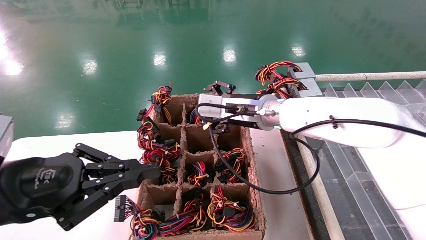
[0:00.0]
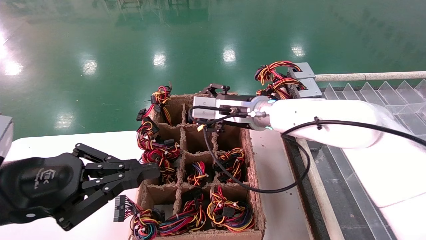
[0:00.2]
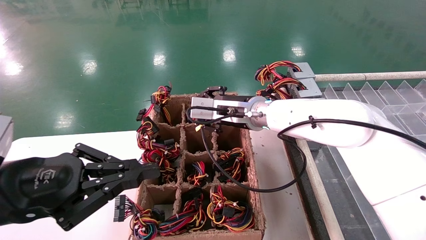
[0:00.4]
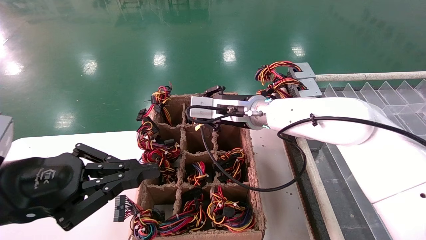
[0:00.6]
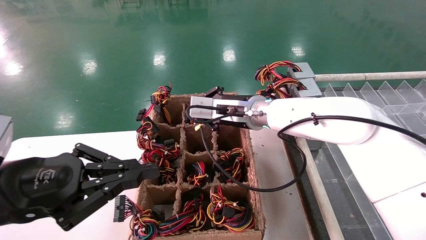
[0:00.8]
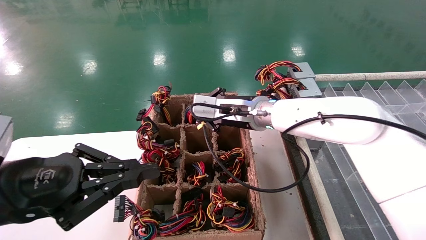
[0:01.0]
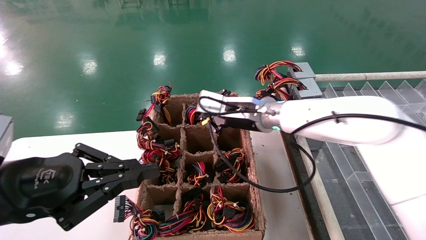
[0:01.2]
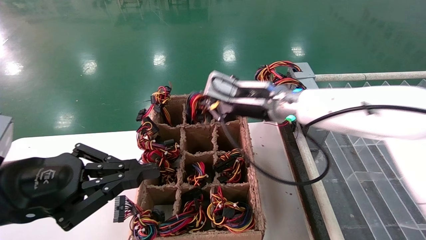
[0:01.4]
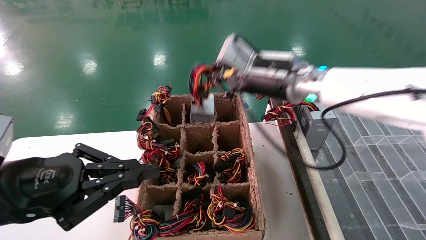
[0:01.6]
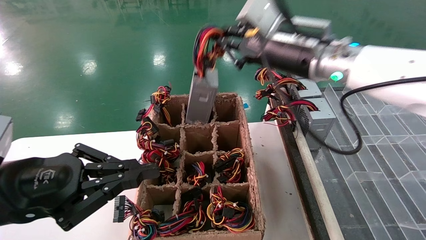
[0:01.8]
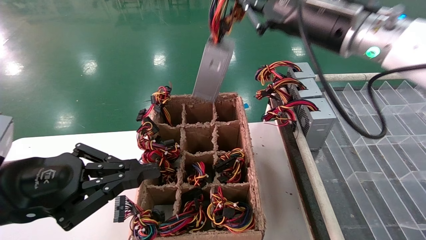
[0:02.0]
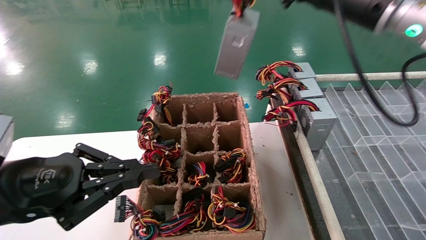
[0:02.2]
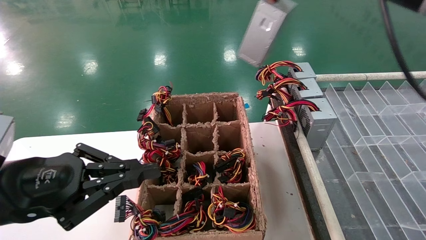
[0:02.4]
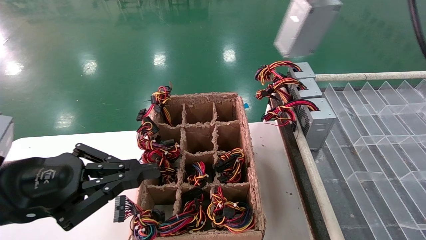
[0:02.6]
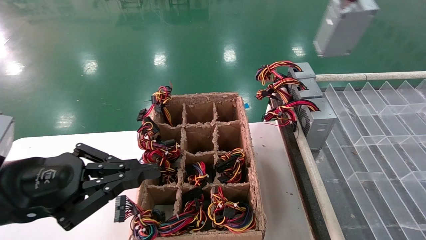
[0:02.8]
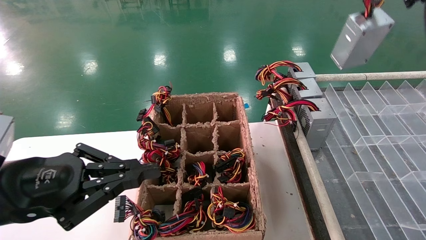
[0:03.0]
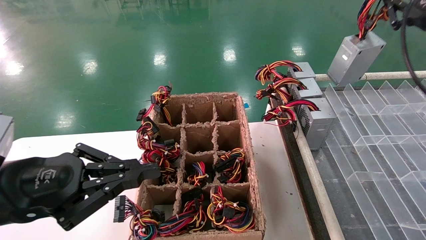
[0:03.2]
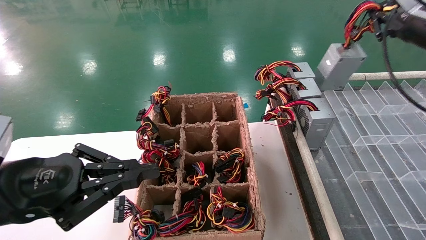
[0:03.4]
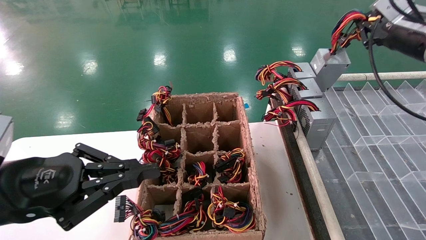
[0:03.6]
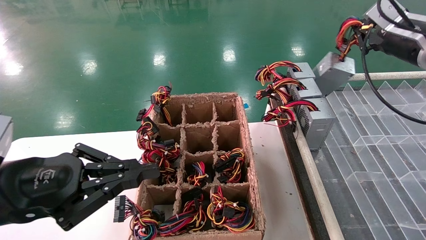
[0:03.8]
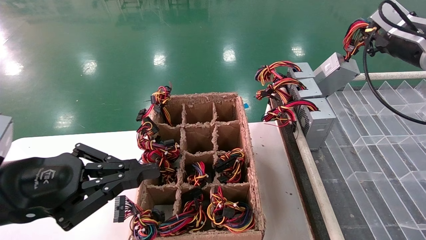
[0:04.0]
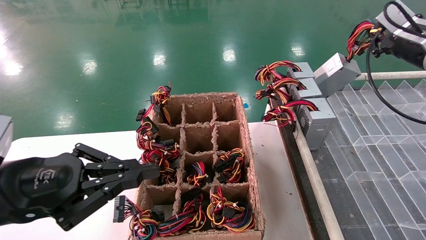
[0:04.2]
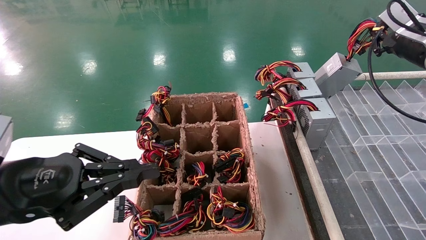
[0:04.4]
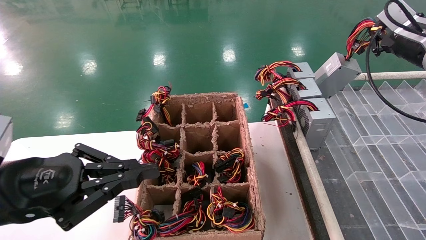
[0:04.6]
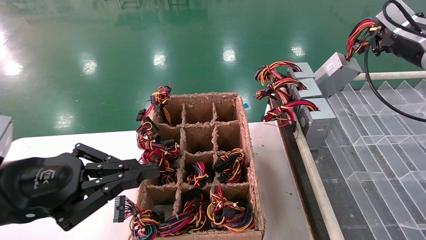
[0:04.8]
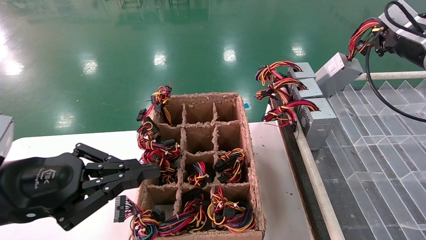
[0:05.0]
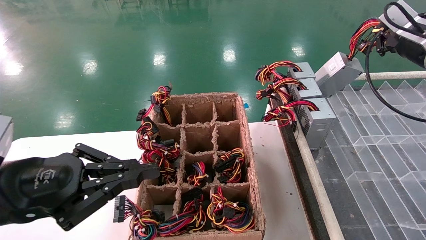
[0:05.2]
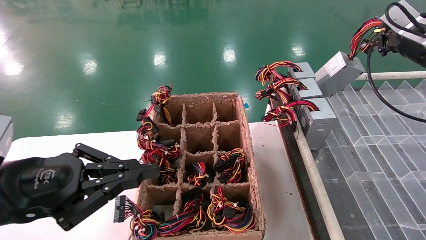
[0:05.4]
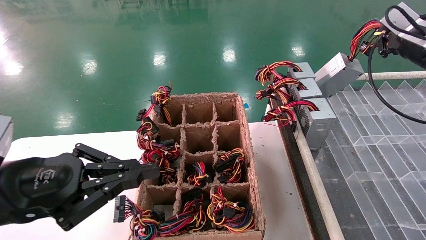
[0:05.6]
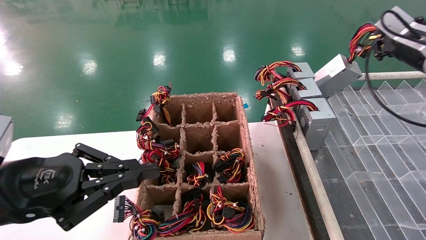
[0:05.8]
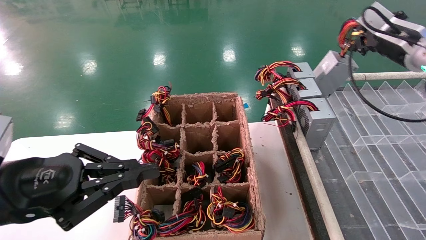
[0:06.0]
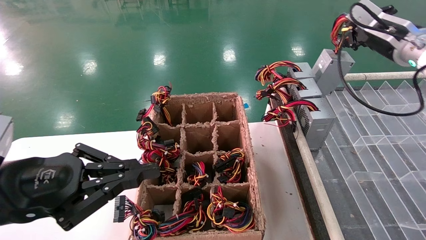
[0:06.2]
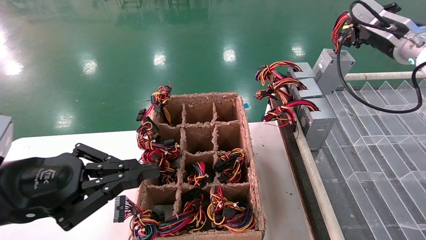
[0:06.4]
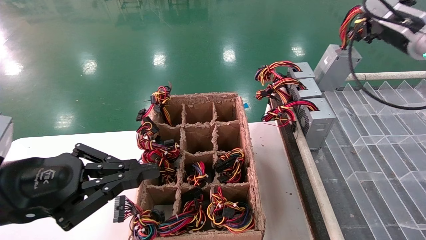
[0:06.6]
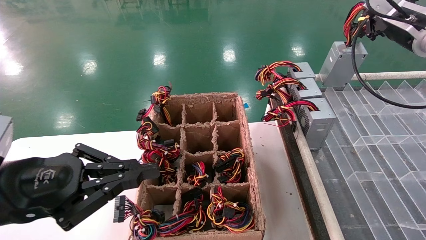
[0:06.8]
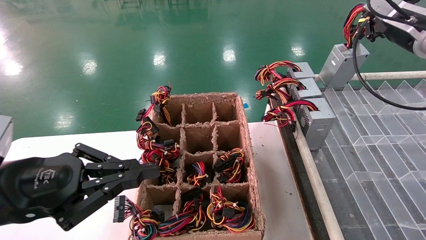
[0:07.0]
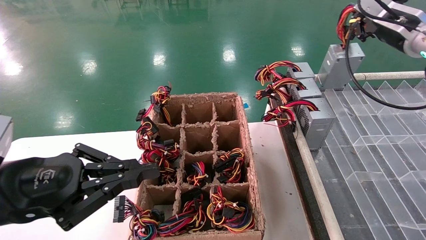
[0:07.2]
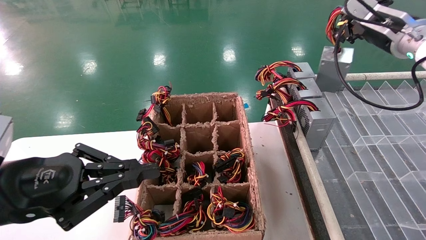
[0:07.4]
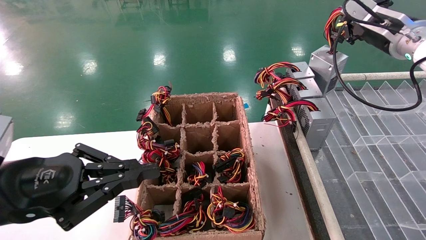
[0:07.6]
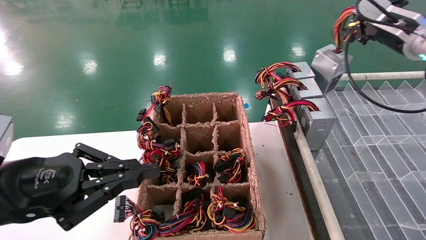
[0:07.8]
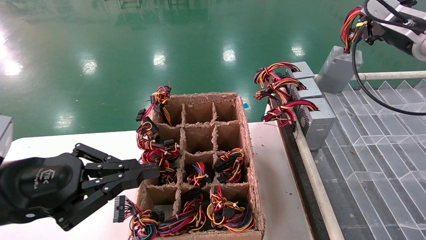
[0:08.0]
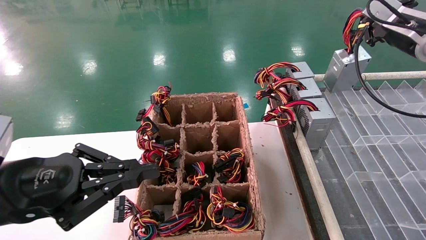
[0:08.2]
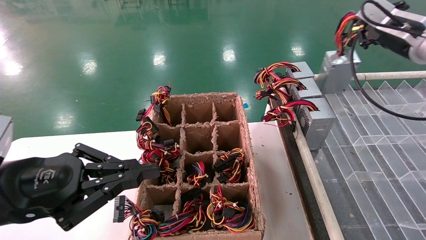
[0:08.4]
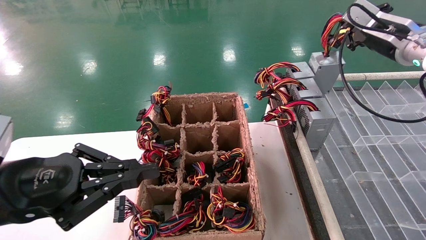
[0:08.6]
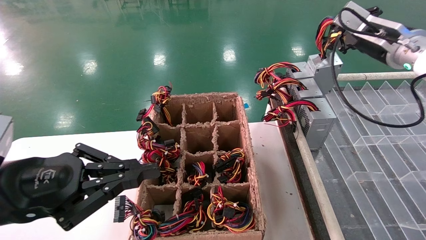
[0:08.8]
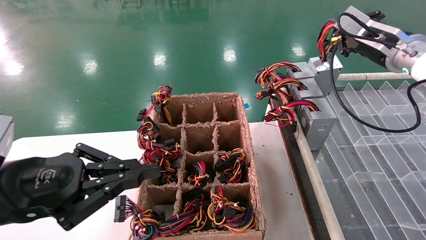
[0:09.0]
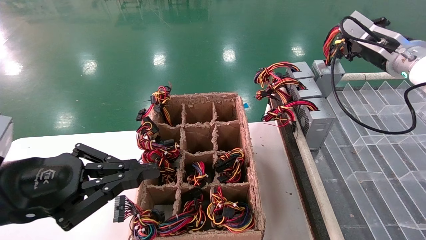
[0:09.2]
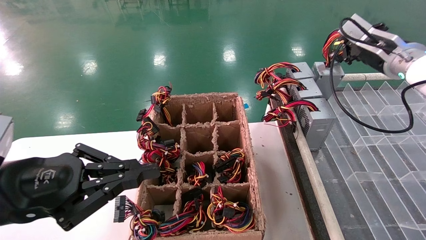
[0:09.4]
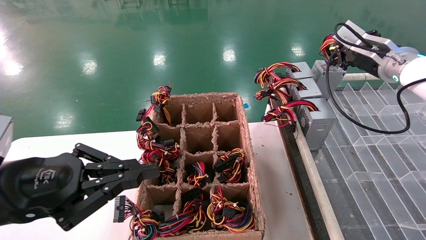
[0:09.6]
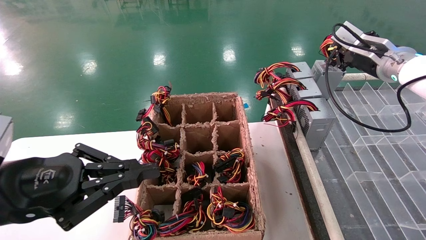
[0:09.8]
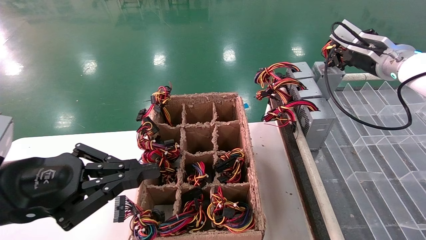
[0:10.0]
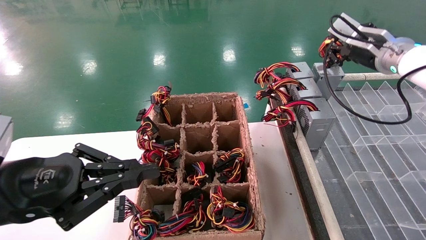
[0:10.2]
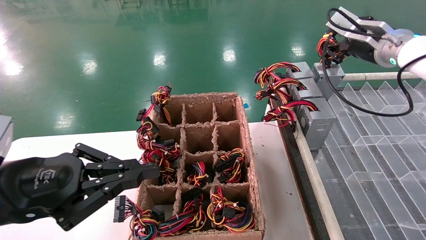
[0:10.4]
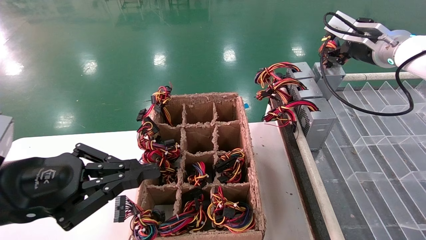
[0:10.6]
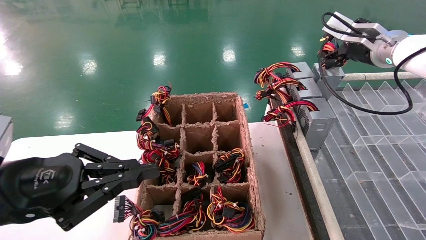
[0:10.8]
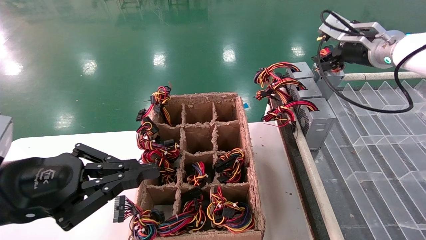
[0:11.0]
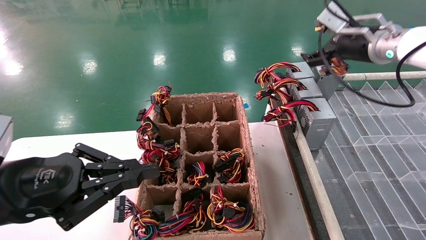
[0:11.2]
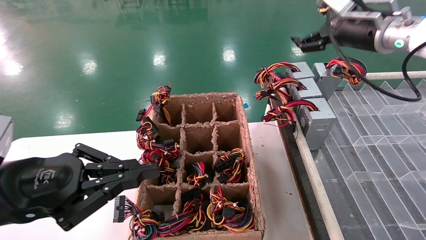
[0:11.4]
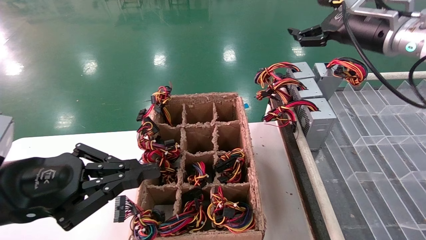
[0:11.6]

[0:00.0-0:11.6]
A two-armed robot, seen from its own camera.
Step, 0:01.6 to 0:11.4: Place the main unit power supply in the designated area.
0:00.0 to 0:01.4: The right gripper closes.
0:01.4 to 0:02.8: The right gripper goes some 30 cm to the right and upward.
0:02.8 to 0:04.4: The right gripper moves forward, downward and to the right, about 15 cm.
0:04.4 to 0:05.8: Both grippers stay put.
0:05.8 to 0:07.2: The grippers move only a little.
0:07.2 to 0:10.2: There are only small adjustments of the grippers.
0:10.2 to 0:11.6: The right gripper shifts by roughly 5 cm, and opens its fingers.

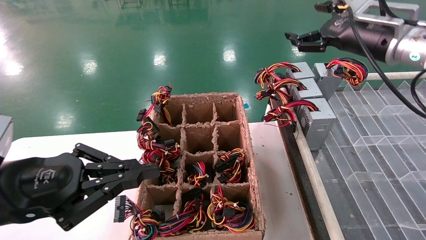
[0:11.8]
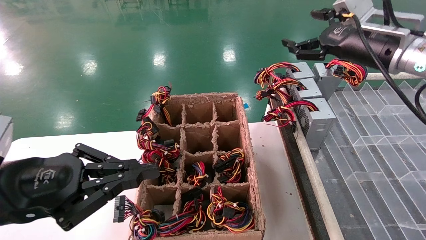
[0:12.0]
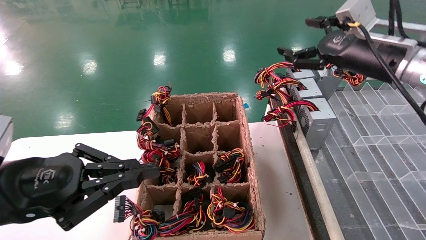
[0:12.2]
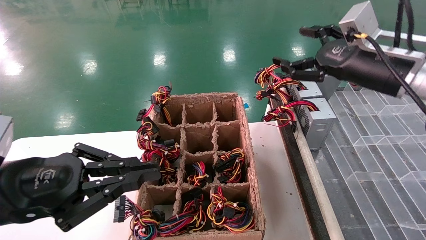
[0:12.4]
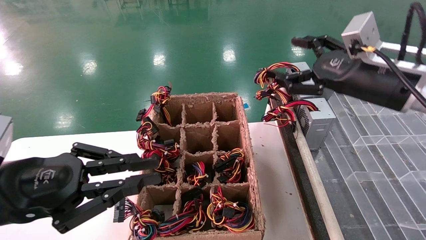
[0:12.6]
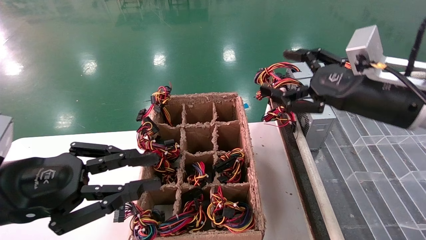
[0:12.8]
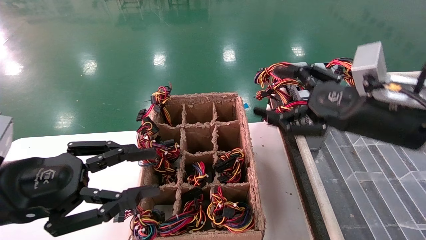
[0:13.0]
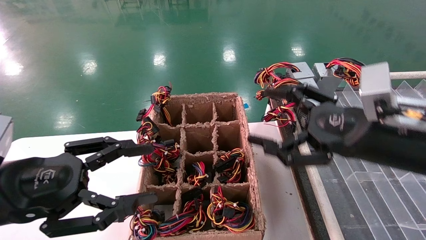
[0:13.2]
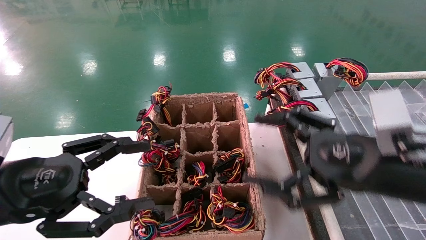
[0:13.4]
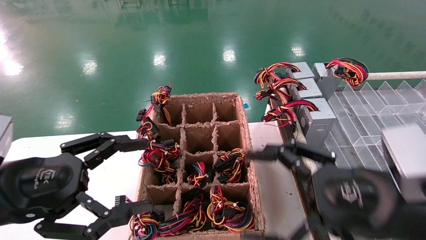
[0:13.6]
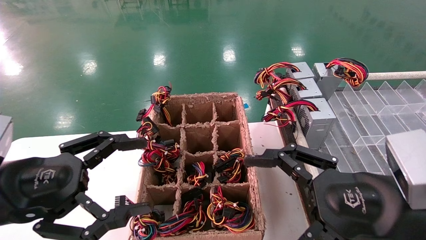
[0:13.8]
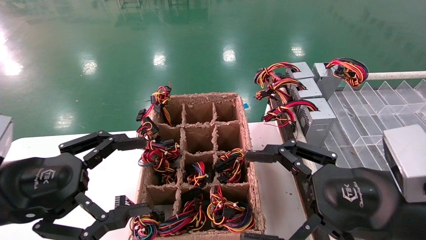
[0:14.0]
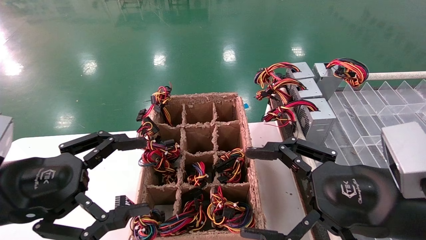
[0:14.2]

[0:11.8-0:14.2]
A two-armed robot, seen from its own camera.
0:11.8 to 0:13.0: The right gripper goes about 15 cm backward and downward.
0:13.0 to 0:14.2: The left gripper opens its fingers, while the right gripper is displaced backward and downward by approximately 10 cm.

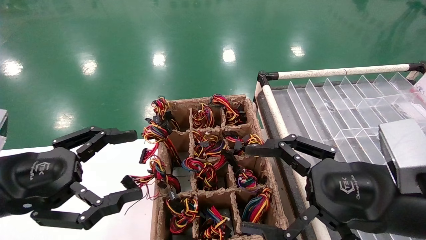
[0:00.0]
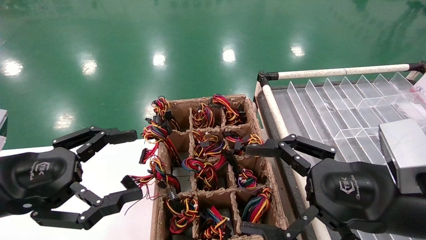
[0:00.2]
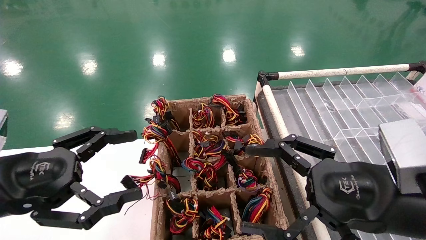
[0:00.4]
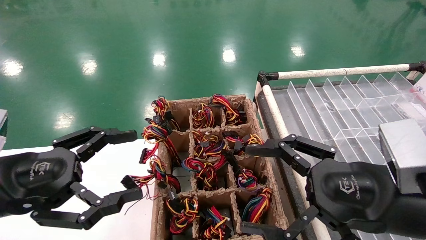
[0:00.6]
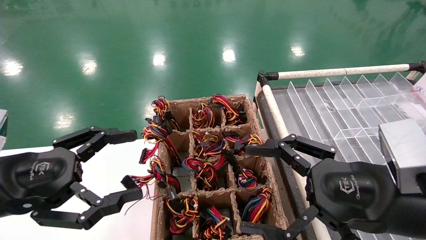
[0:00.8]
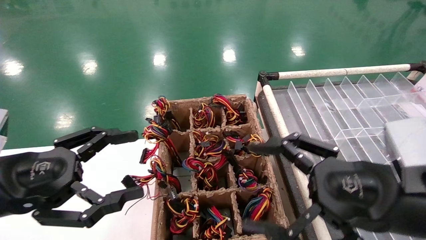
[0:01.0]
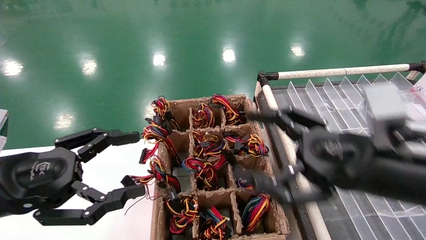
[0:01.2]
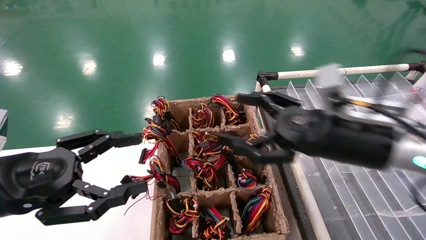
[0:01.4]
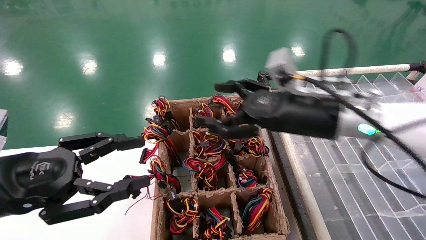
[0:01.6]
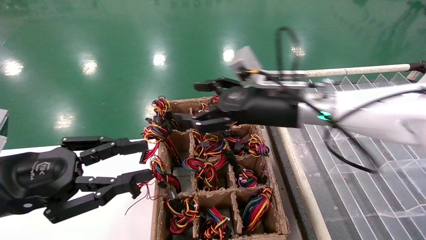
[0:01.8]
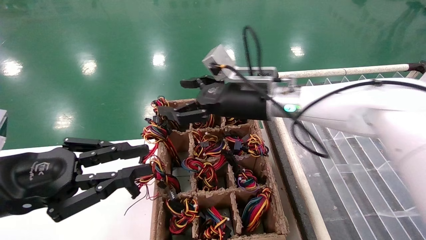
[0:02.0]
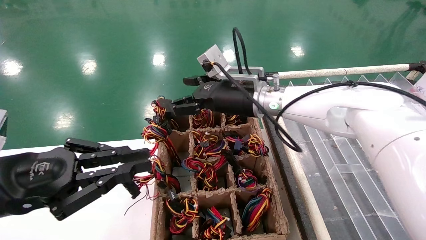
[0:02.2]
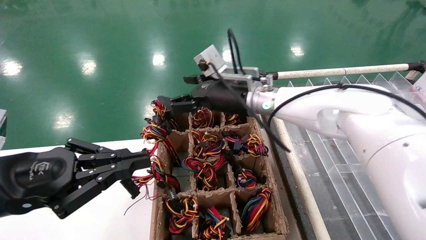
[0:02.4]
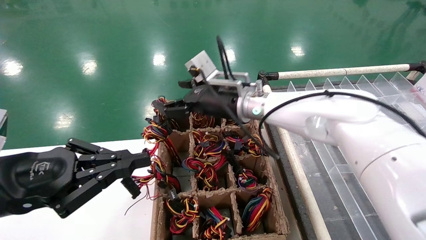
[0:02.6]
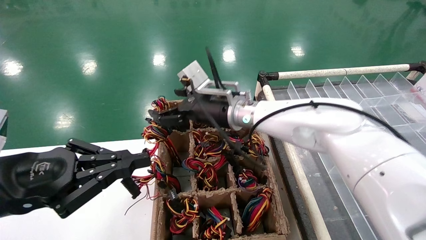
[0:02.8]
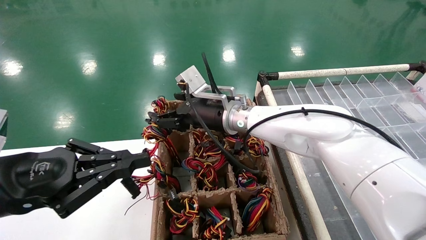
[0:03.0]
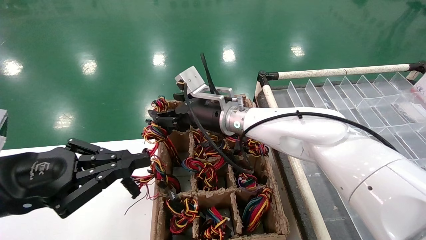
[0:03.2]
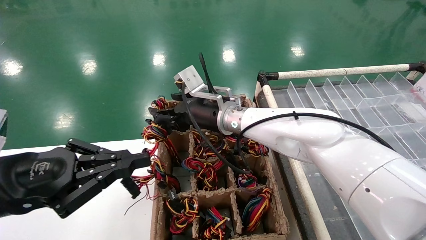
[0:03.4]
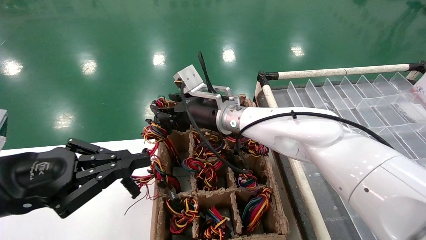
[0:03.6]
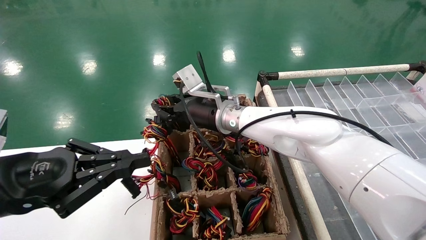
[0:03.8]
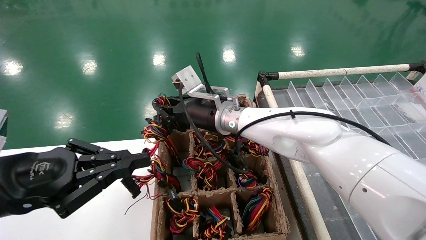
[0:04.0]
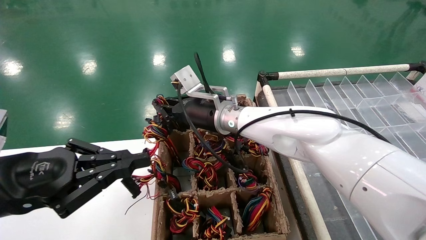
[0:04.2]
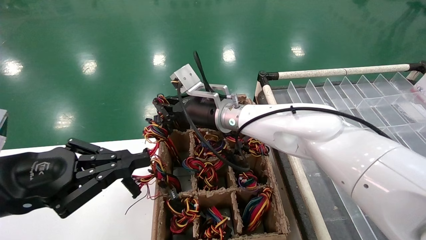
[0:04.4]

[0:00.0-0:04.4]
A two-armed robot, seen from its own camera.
Step, 0:01.4 to 0:04.2: Grab the main unit power supply from the containment box.
0:00.0 to 0:01.4: The right gripper shifts some 10 cm forward.
0:01.4 to 0:03.0: The right gripper moves to the left and forward, approximately 25 cm. Meanwhile the left gripper closes up.
0:03.0 to 0:04.4: The right gripper closes its fingers.
